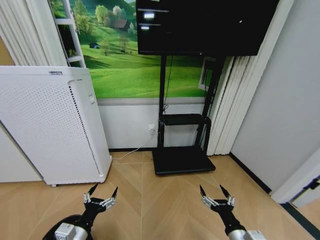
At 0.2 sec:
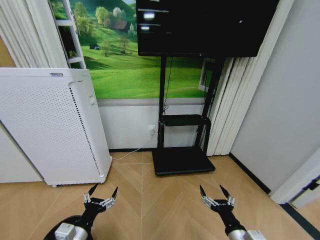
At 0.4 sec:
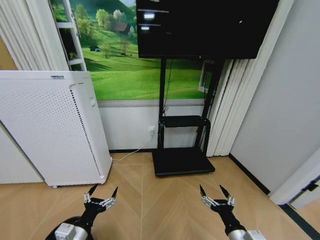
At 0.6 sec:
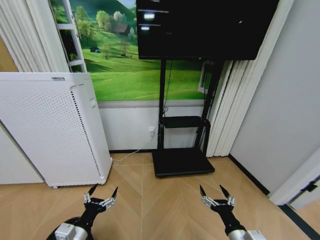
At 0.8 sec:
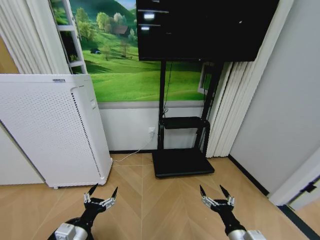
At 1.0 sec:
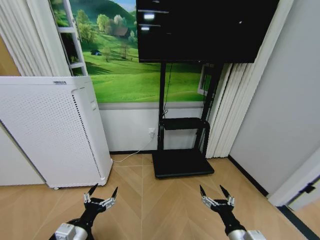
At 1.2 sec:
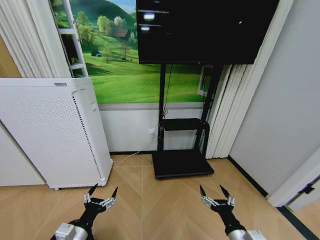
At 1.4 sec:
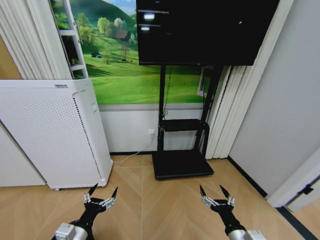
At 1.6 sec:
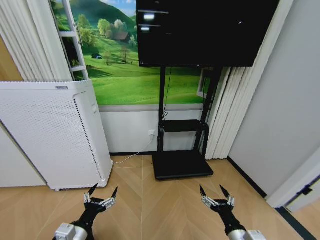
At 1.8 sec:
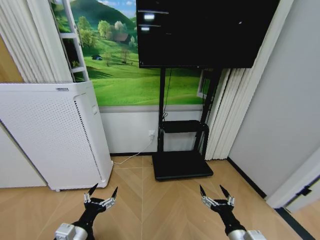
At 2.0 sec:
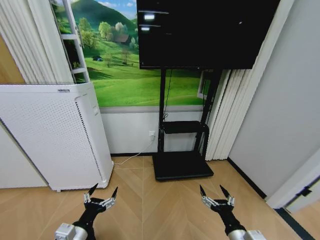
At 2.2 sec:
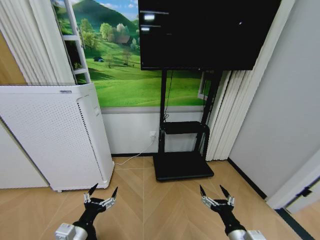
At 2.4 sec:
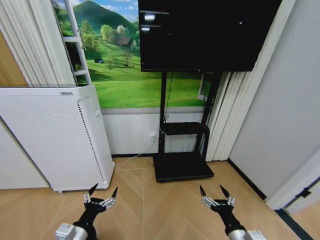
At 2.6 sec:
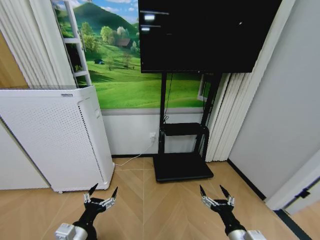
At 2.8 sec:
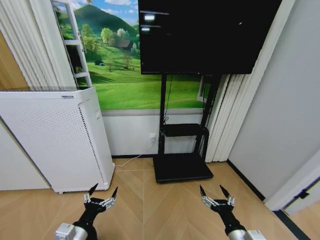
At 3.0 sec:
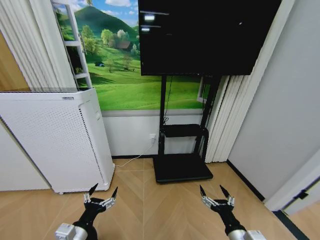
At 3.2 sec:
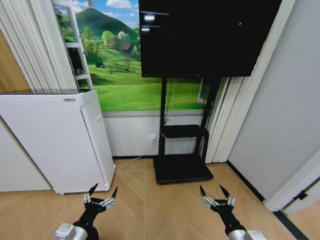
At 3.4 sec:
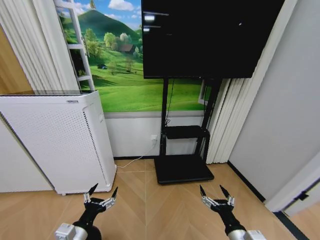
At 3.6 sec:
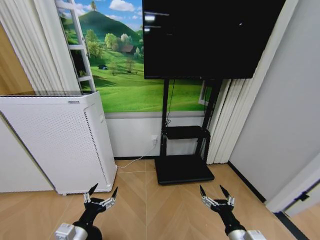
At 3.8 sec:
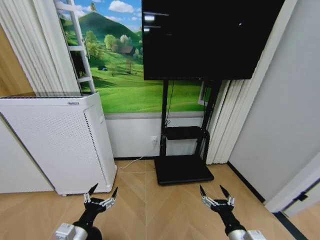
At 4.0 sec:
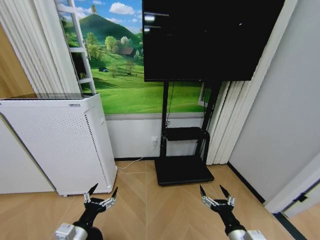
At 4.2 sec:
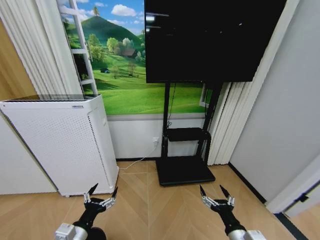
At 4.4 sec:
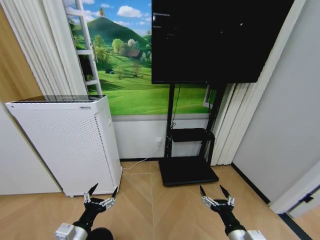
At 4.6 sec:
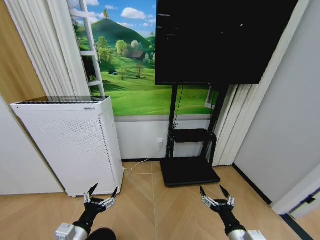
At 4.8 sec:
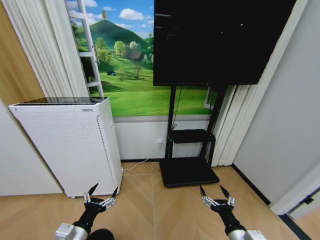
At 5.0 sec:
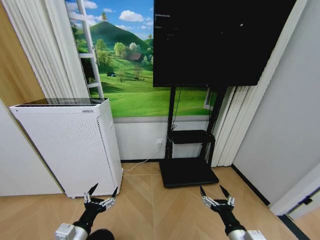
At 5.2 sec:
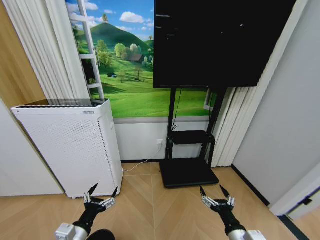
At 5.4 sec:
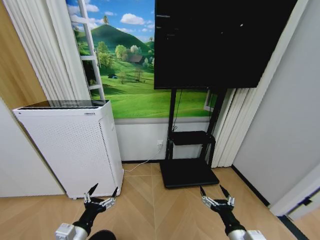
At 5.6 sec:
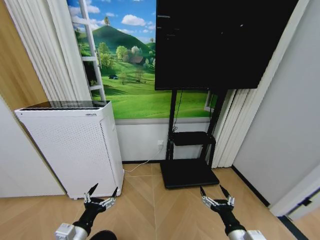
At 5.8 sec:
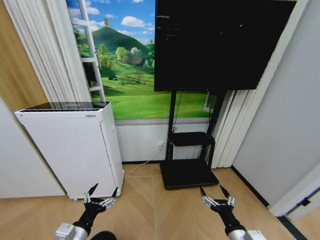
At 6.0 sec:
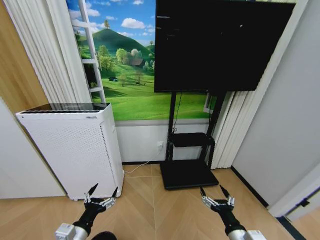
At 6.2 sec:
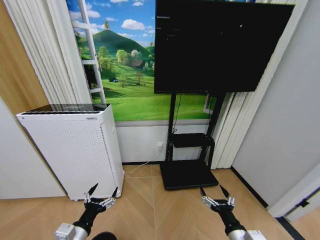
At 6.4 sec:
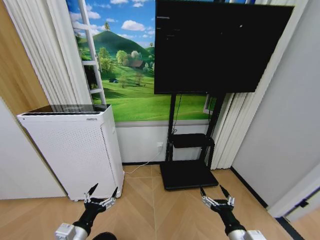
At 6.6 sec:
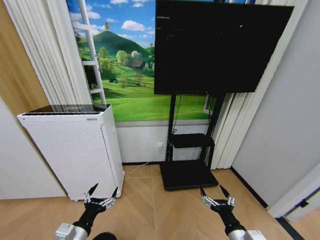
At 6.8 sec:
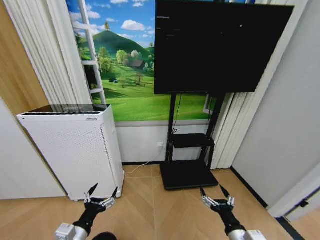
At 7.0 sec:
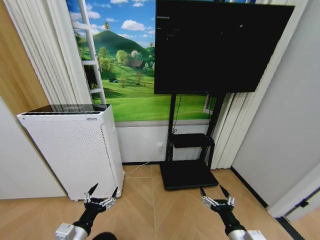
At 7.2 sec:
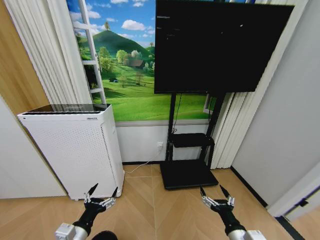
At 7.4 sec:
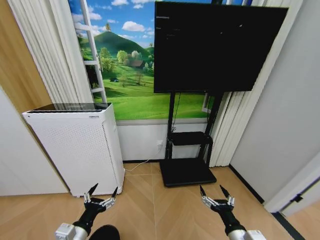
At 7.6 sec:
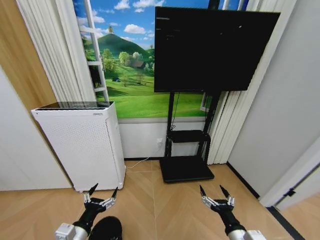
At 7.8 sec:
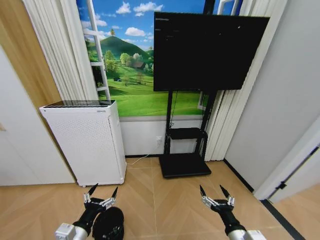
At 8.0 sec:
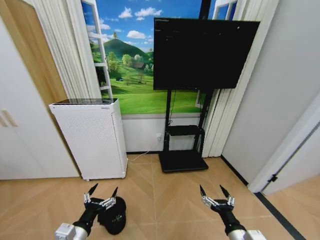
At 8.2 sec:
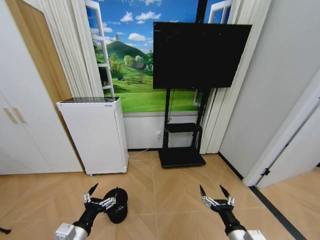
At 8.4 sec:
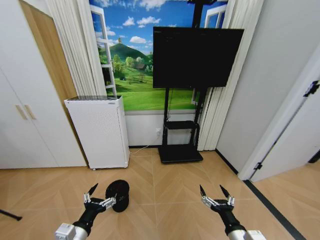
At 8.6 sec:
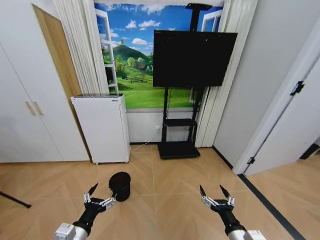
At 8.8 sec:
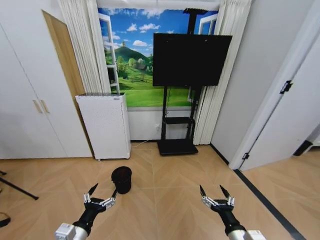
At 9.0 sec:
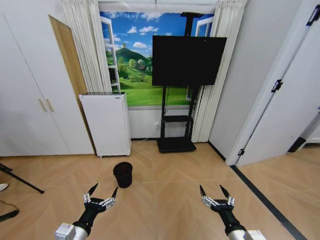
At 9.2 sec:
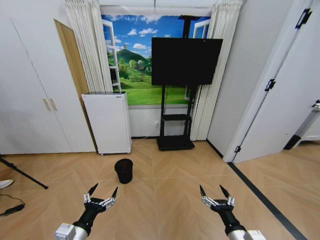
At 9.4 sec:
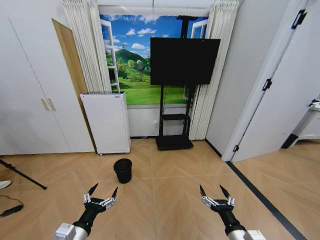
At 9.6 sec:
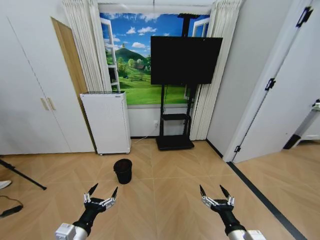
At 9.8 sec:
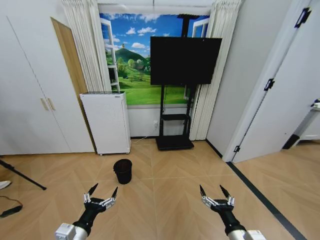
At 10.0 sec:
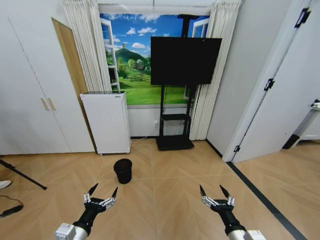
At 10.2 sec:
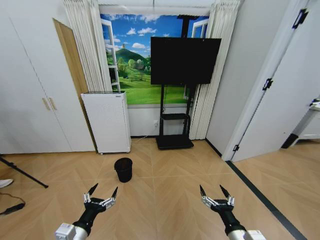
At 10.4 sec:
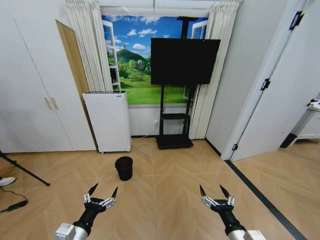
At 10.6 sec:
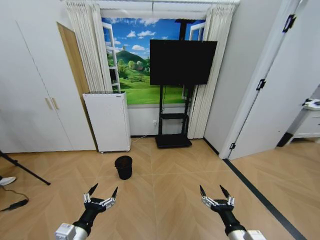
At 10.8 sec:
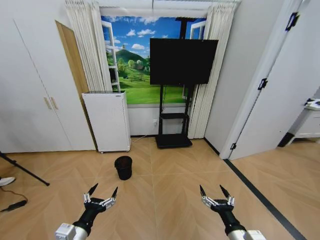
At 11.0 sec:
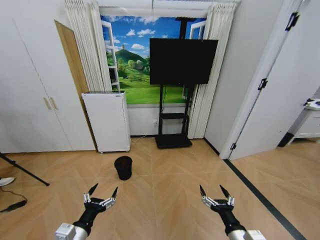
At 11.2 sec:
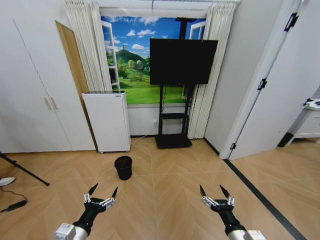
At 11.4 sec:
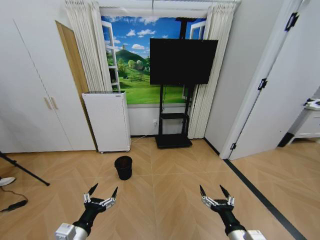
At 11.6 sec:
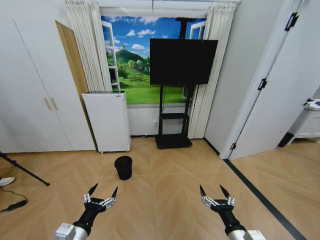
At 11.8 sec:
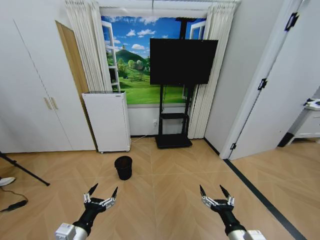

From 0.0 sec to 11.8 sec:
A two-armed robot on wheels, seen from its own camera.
Task of the whole recording: Pick up the trash bin and place the garbage on the floor into it.
From 0.0 sec to 3.0 sec: Neither gripper changes place.
From 6.0 sec to 7.4 sec: Neither gripper changes place.
From 10.4 sec to 11.8 sec: Both grippers stay about where they are.
